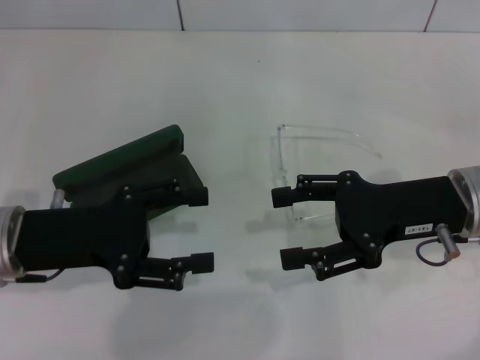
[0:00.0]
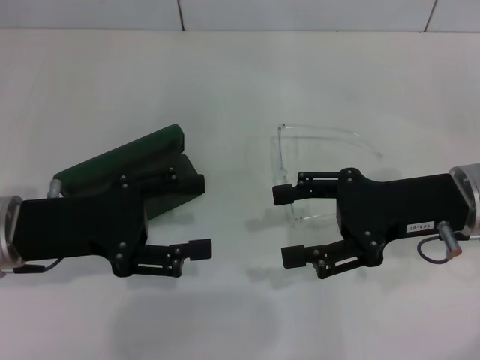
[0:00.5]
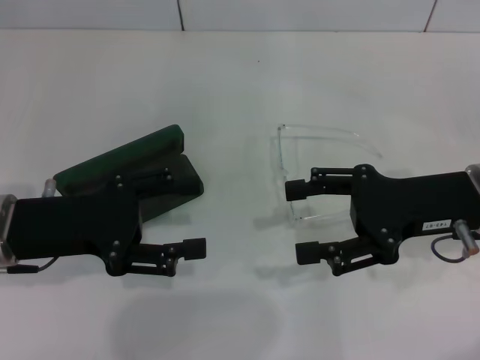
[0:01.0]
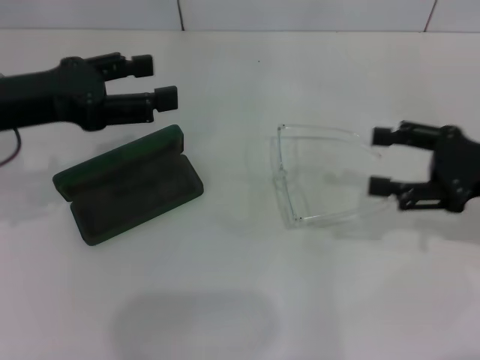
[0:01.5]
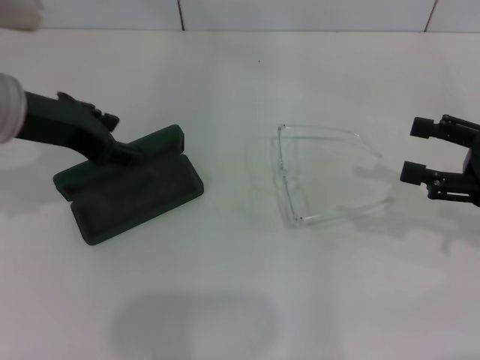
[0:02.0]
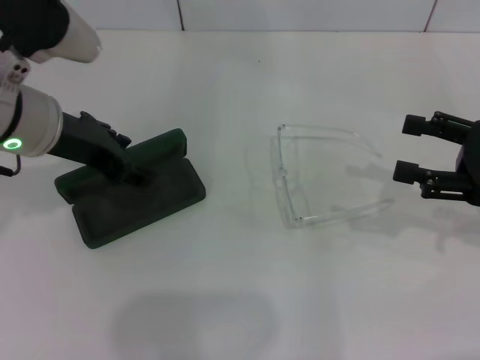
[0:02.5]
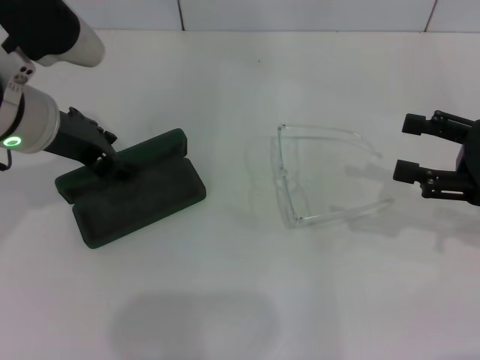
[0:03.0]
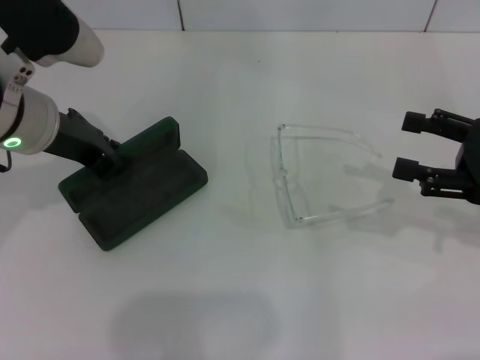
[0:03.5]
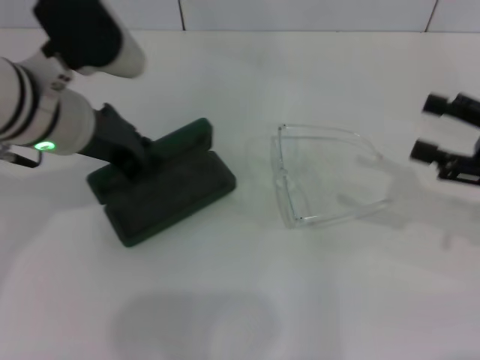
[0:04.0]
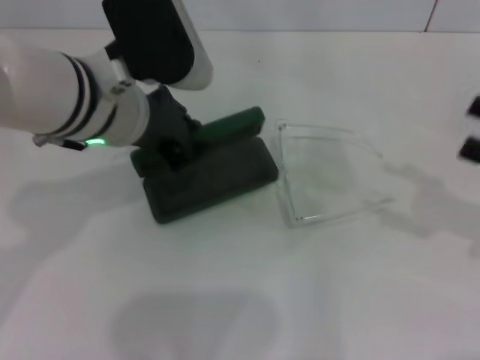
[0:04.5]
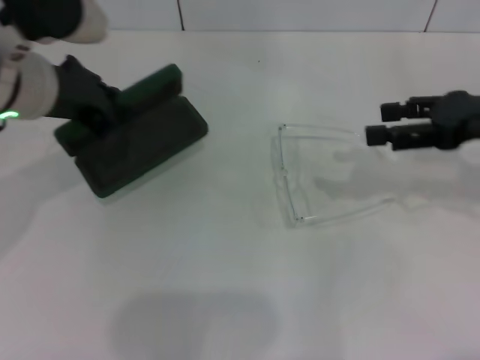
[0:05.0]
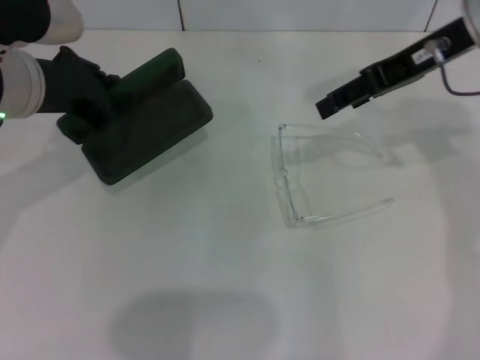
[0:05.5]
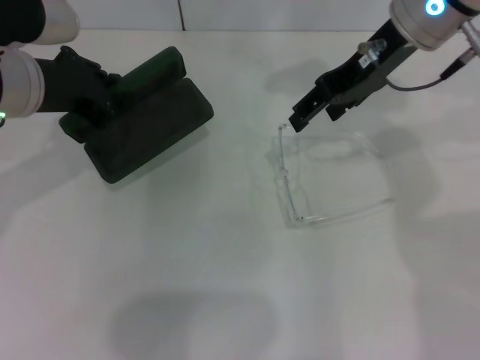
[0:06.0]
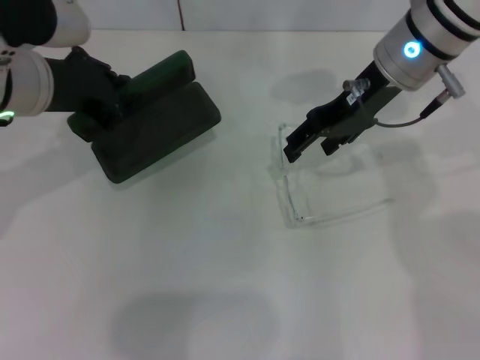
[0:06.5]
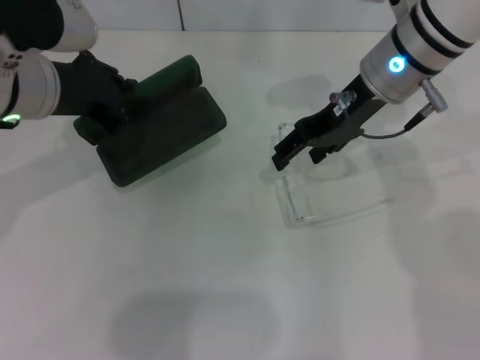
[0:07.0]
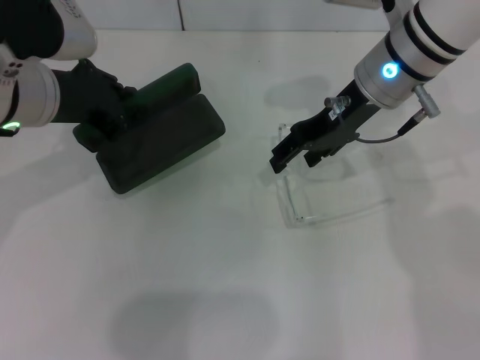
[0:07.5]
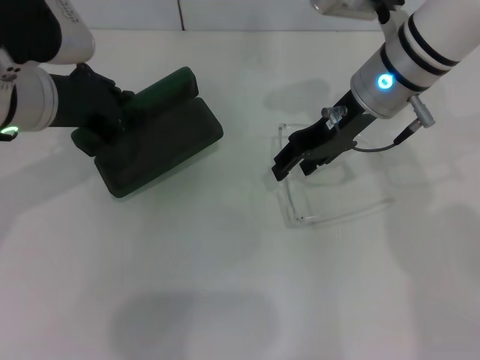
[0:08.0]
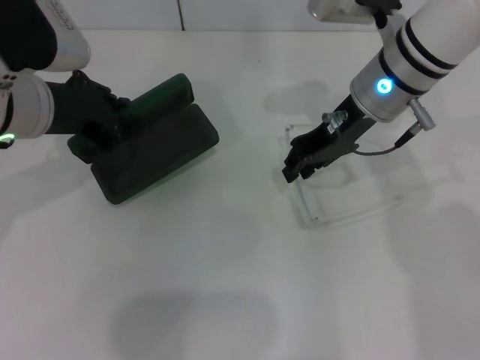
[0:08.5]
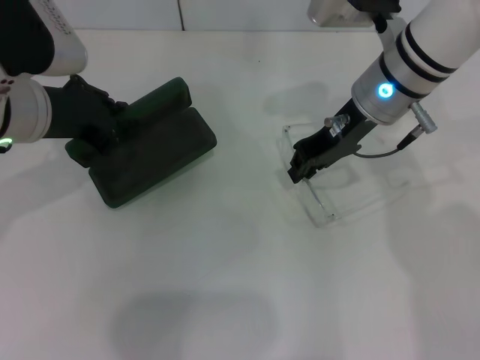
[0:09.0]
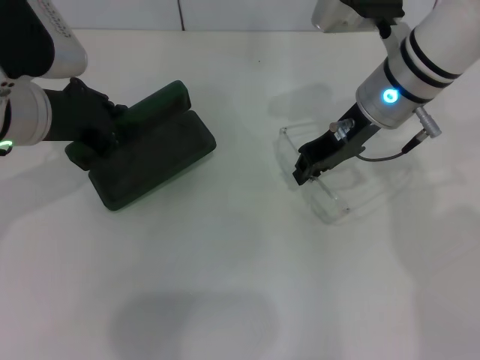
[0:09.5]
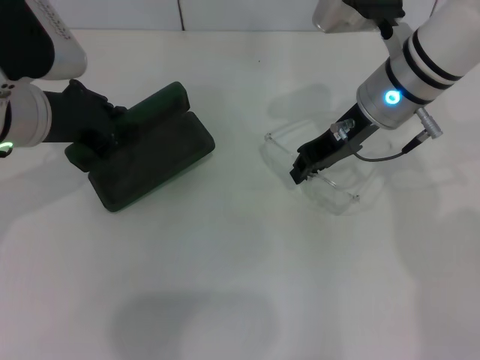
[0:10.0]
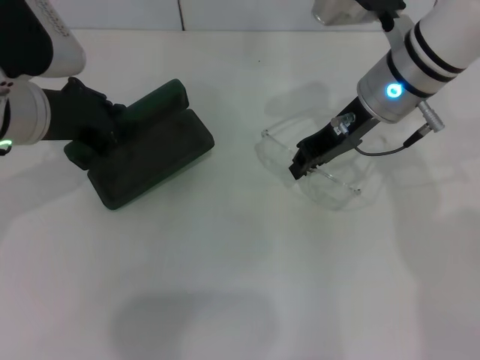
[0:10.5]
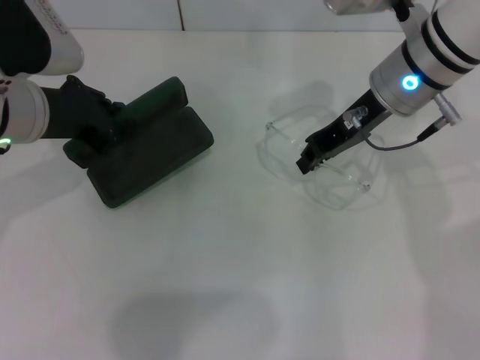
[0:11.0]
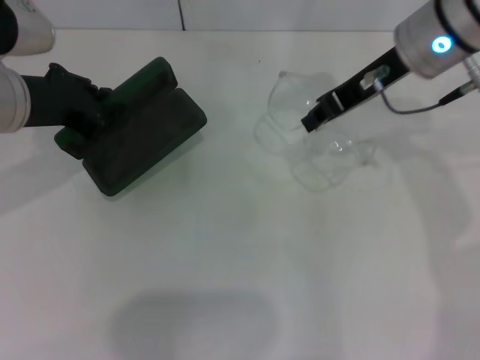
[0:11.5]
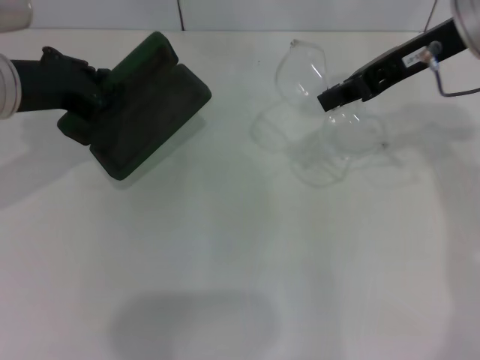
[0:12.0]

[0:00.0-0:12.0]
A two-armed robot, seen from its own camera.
Step, 0:00.0 to 0:03.5: Grab the glasses case with your left hand.
Step, 0:04.0 to 0:09.5: Grab the eyeglass frame with your right hand.
0:00.0 to 0:02.0: The right gripper is displaced to the right by some 10 cm; the left gripper heads upward and forward, covering some 10 cm.
0:02.0 to 0:04.0: The left gripper heads to the right, covering roughly 5 cm, and closes its fingers.
0:04.0 to 0:06.0: The right gripper goes roughly 25 cm to the left, forward and upward.
0:06.0 to 0:08.0: The right gripper is displaced downward by roughly 10 cm.
0:08.0 to 0:10.0: The right gripper closes.
0:10.0 to 0:12.0: The right gripper goes roughly 10 cm upward and to the right.

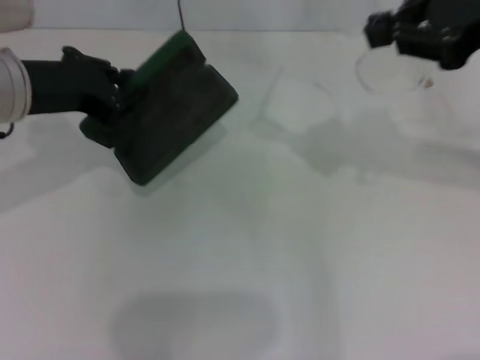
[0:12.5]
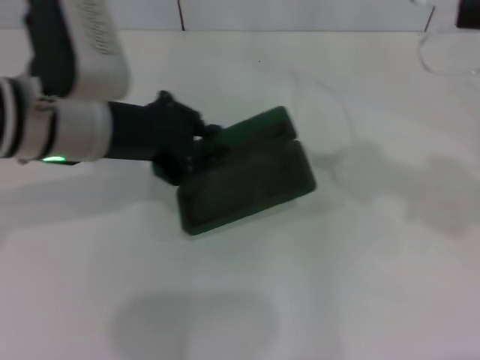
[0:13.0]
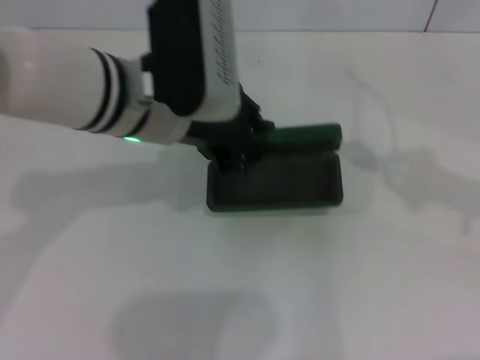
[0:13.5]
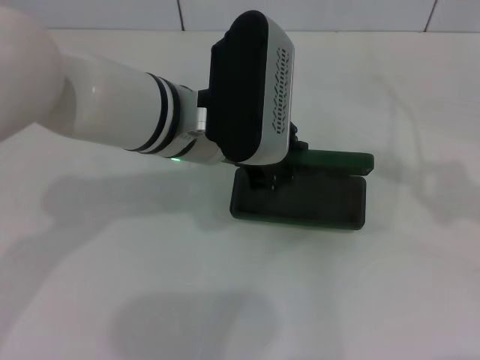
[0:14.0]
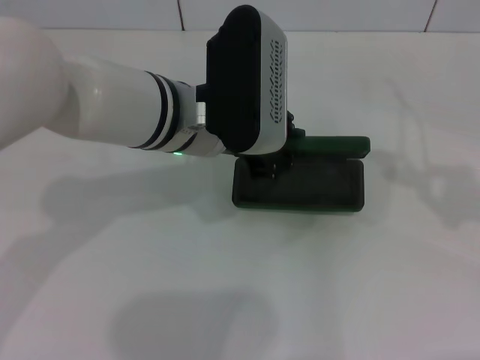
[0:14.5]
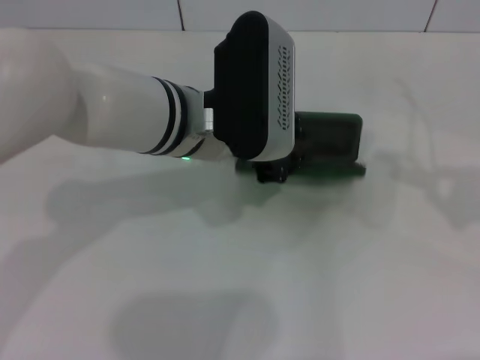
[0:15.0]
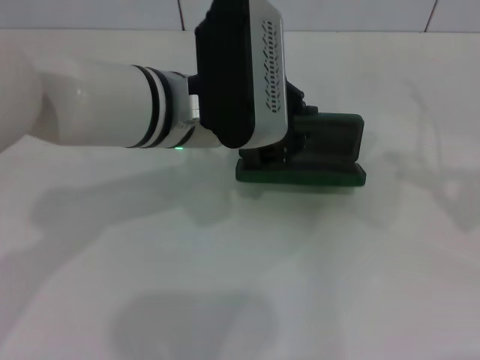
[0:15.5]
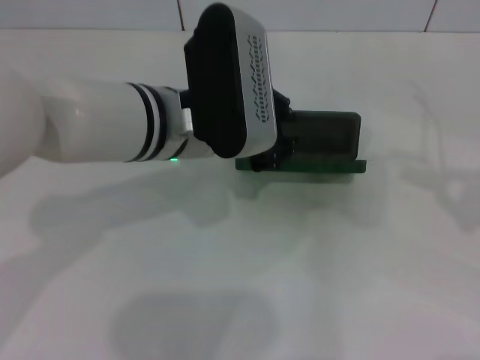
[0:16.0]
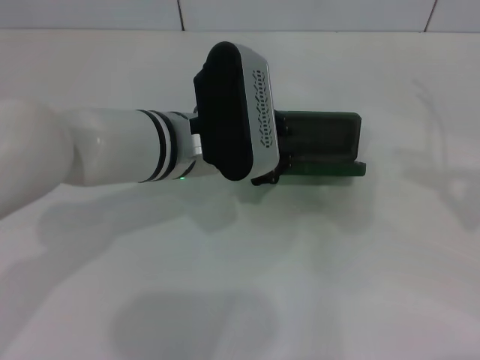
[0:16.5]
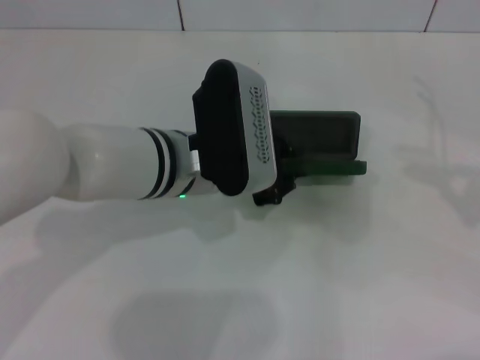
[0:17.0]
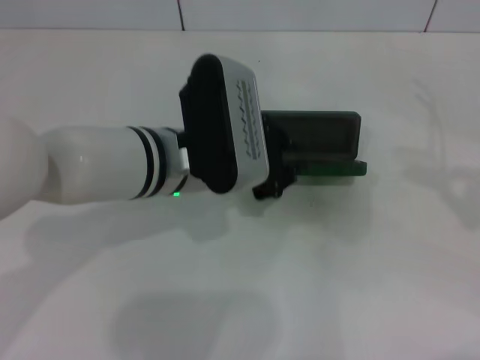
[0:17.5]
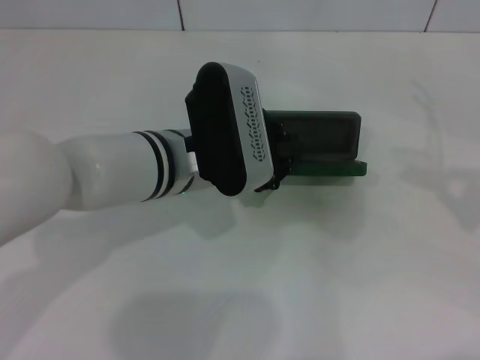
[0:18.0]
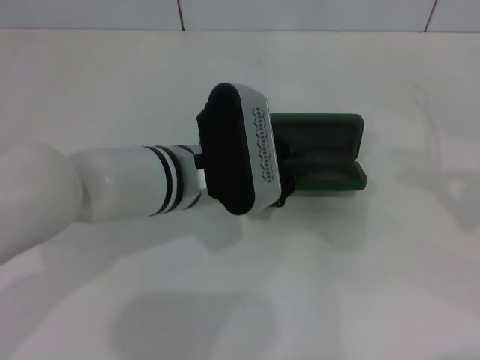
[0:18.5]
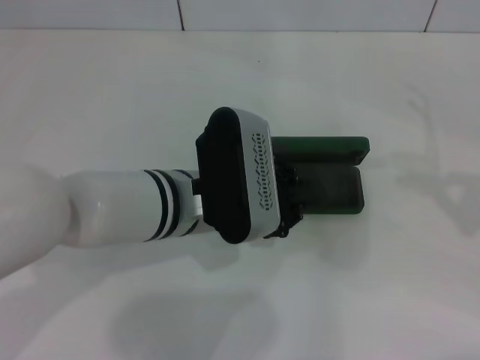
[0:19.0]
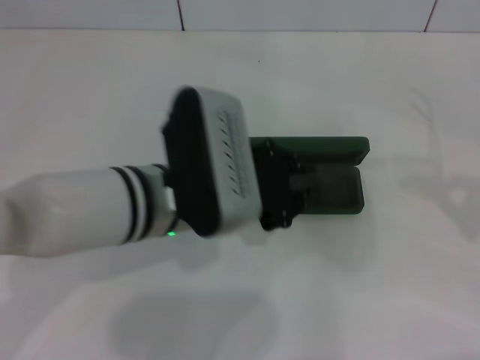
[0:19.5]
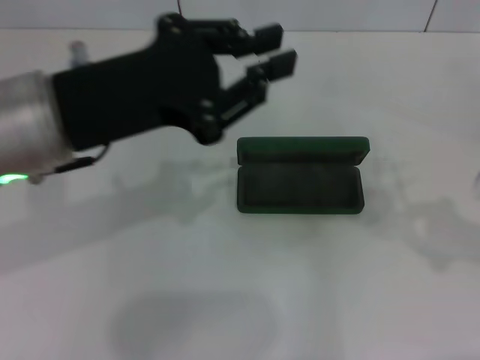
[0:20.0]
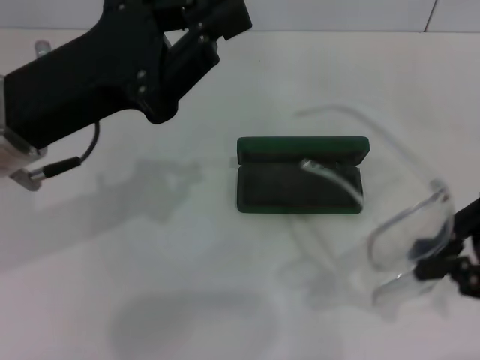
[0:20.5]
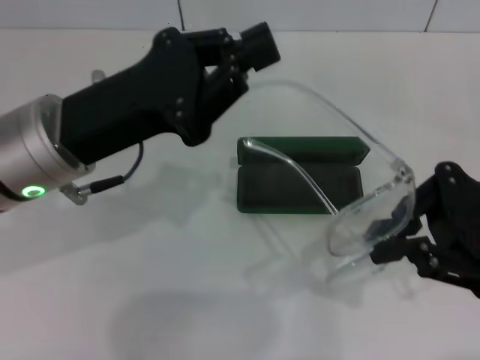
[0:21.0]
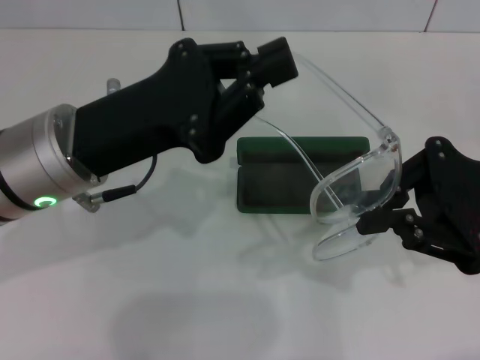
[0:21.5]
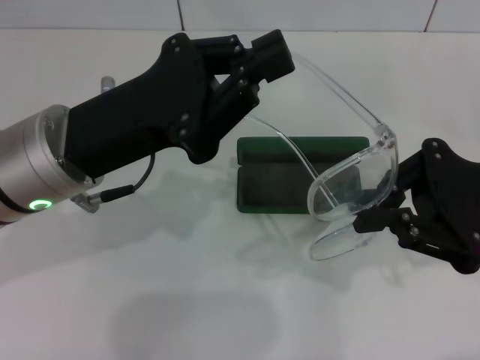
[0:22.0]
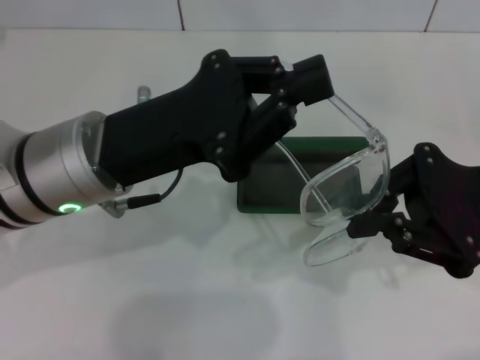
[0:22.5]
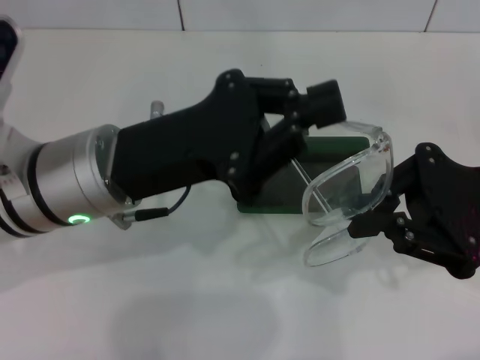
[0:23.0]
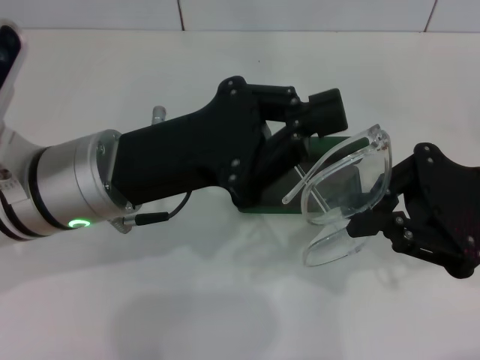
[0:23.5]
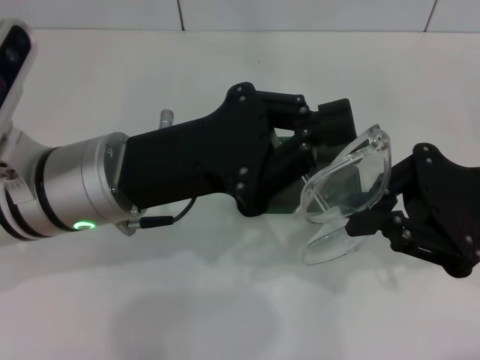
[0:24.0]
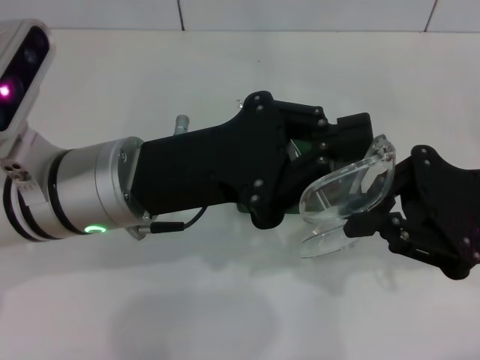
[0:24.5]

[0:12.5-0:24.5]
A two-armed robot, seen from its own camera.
Step, 0:12.5 to 0:18.5: Place the glasses case in the center of the table with your left hand.
0:12.5 to 0:14.5: The left gripper moves to the right, some 15 cm; the right gripper goes some 20 cm to the right, backward and downward.
0:14.5 to 0:16.5: The grippers move only a little.
0:16.5 to 0:18.5: There are only small adjustments of the grippers.
0:18.5 to 0:20.5: The right gripper travels to the left and downward by some 15 cm. Meanwhile the left gripper is displaced to the left and upward by about 15 cm.
0:20.5 to 0:22.5: The right gripper travels to the left by roughly 5 cm; the left gripper changes place by approximately 5 cm.

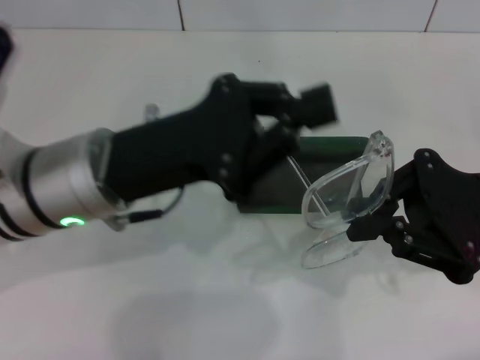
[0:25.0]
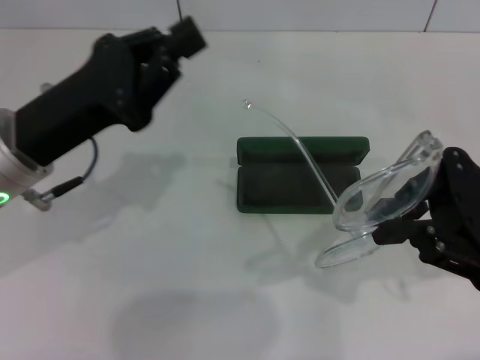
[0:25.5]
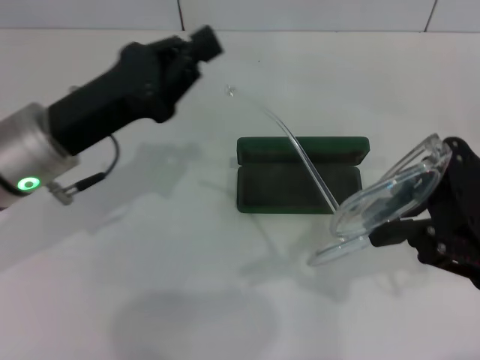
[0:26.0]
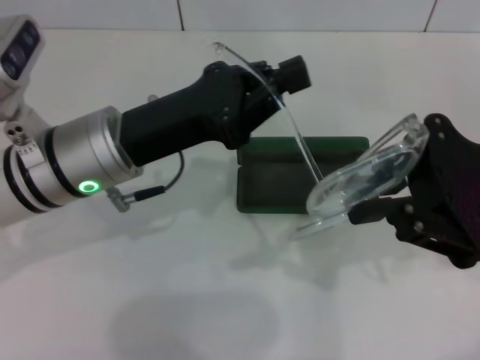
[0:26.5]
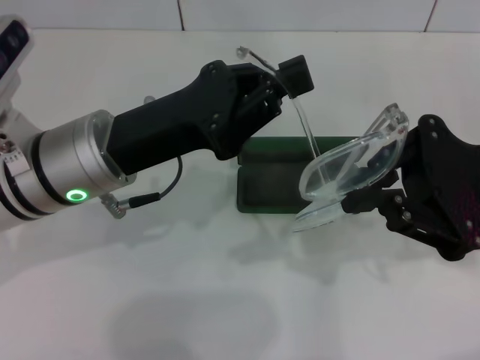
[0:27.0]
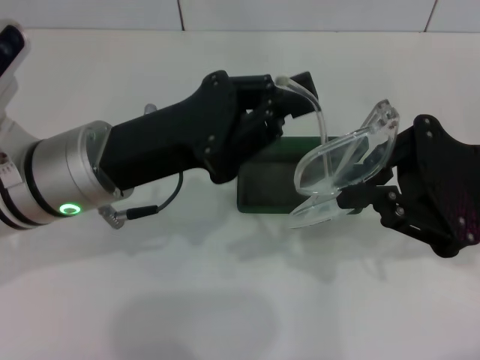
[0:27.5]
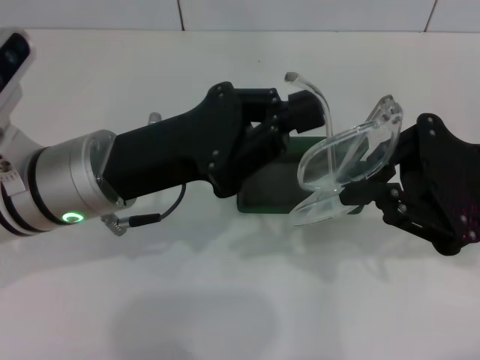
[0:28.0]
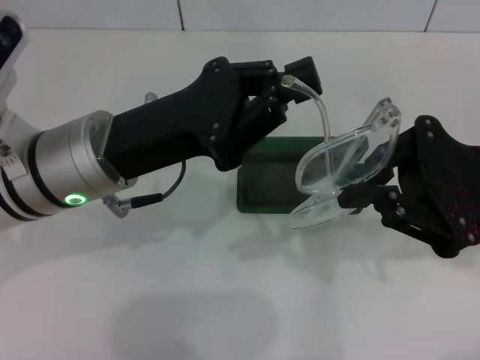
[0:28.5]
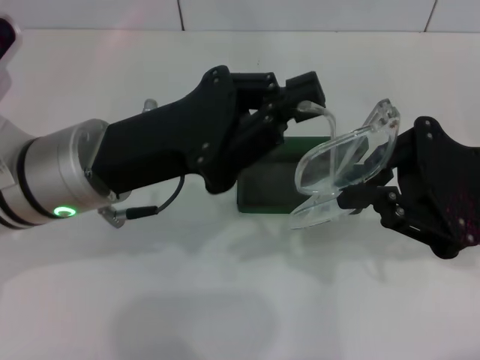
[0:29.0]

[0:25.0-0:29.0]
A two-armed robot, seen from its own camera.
0:27.0 to 0:29.0: The grippers make only small movements.
